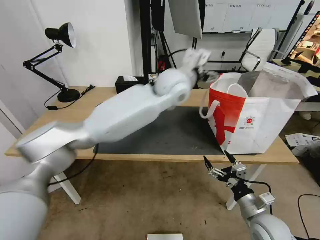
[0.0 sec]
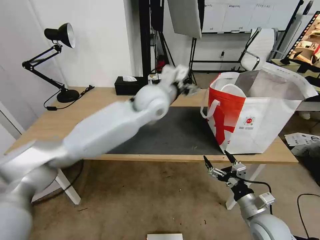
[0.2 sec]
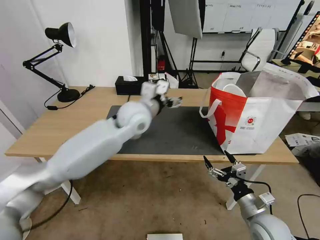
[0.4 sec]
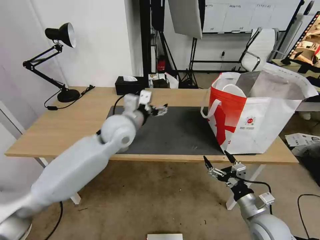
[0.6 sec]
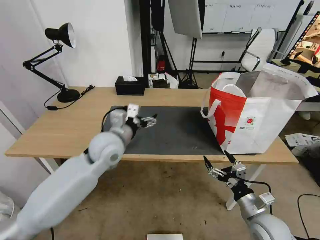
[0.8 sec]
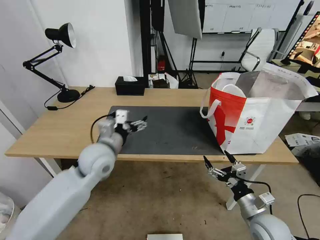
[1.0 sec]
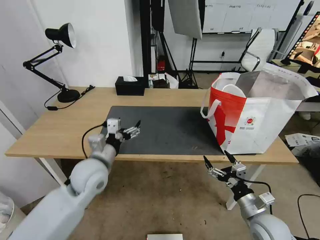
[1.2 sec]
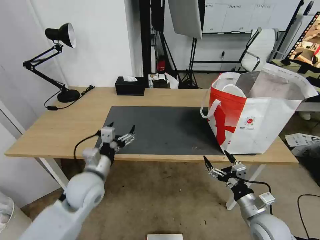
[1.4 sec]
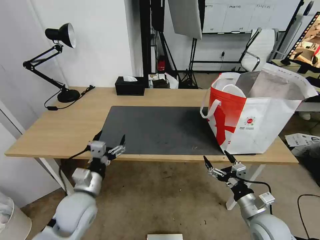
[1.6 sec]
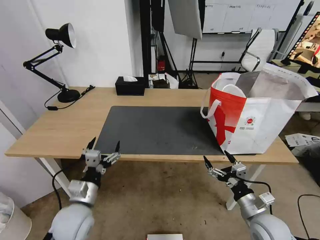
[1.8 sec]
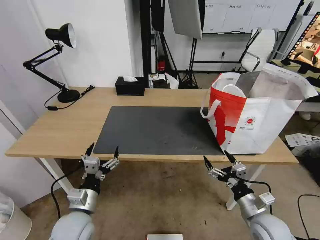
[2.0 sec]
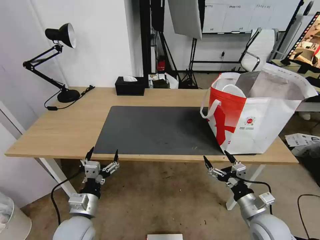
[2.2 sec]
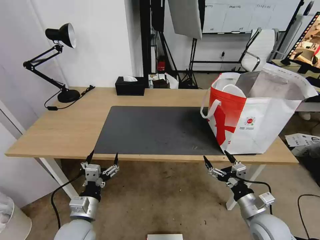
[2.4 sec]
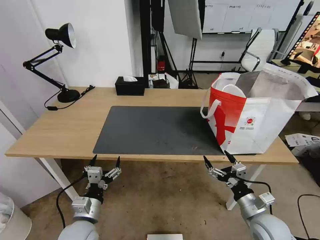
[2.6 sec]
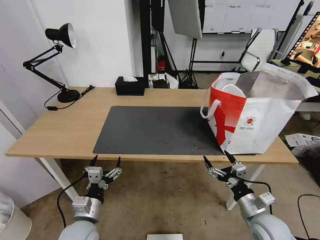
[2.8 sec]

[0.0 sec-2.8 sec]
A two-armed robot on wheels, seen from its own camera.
Task of the whole recording: Pick up the trash from the table and place it into the takeout bag.
0.0 sec to 1.4 sec: The left gripper is displaced to the left, downward and backward by approximately 40 cm.
1.4 sec to 2.8 sec: The left gripper heads backward and downward, covering roughly 15 cm.
